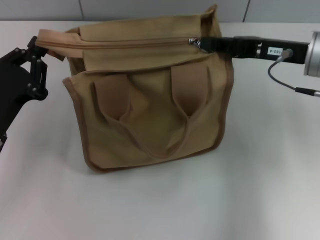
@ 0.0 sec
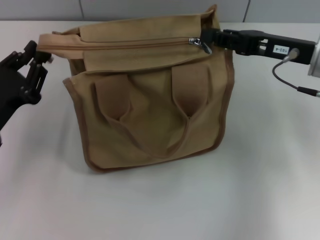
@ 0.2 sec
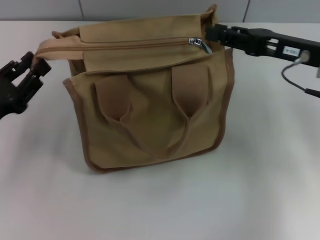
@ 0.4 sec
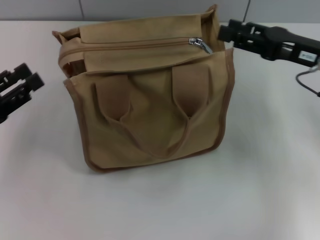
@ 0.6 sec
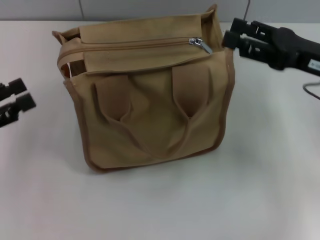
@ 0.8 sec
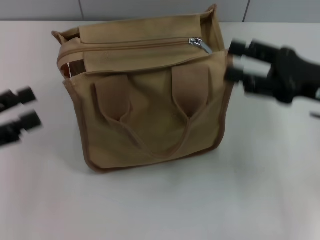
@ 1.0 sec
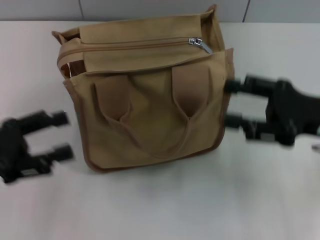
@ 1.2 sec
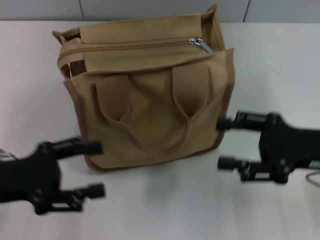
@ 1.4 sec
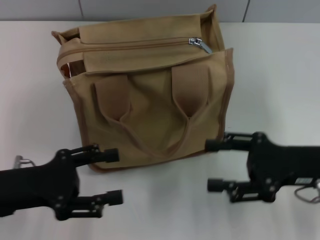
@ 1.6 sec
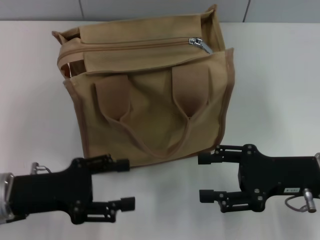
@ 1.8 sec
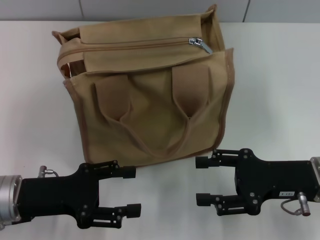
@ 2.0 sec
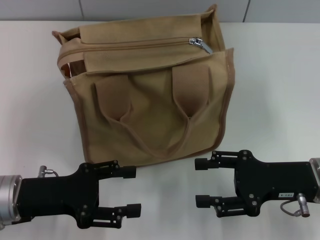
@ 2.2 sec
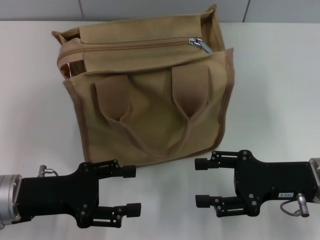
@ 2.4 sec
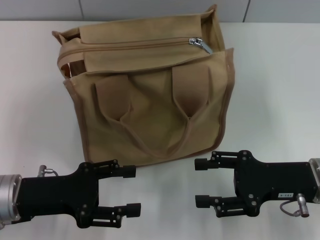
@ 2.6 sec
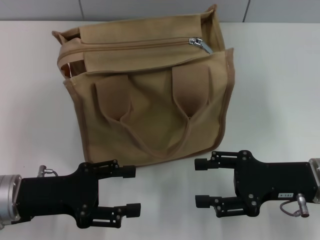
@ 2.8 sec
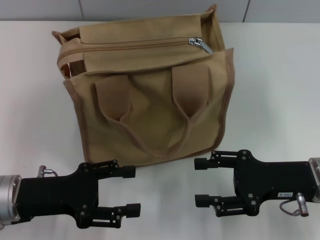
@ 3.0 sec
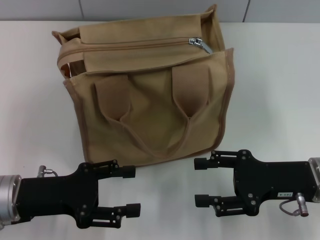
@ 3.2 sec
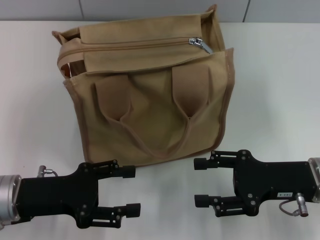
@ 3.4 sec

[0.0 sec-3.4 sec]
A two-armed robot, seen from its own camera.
0.0 sec to 1.6 sec: The right gripper travels backward and downward by approximately 15 cm, and opens up. The left gripper goes to the left and returns, about 10 cm each way, and opens.
1.6 sec to 3.4 sec: There are only small adjustments of the grippers.

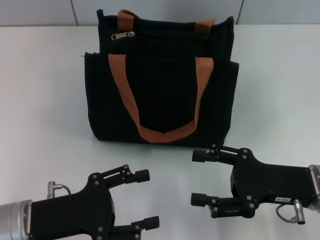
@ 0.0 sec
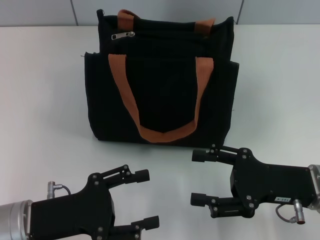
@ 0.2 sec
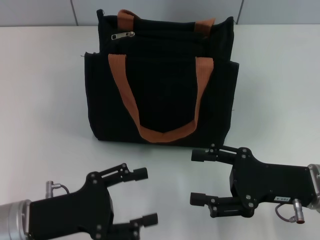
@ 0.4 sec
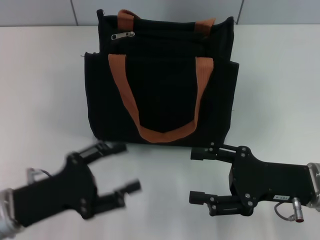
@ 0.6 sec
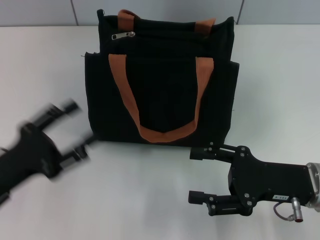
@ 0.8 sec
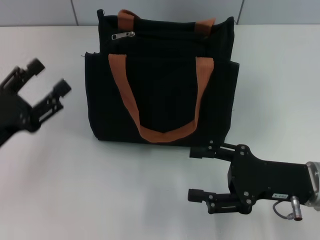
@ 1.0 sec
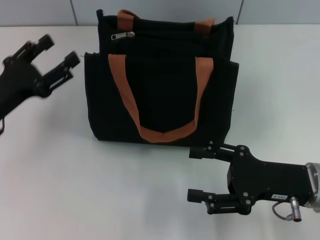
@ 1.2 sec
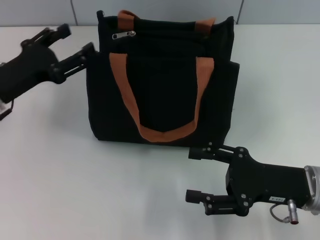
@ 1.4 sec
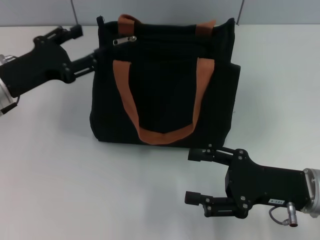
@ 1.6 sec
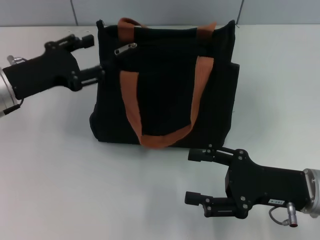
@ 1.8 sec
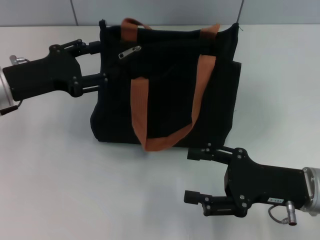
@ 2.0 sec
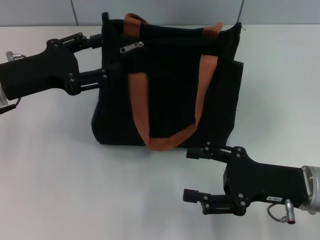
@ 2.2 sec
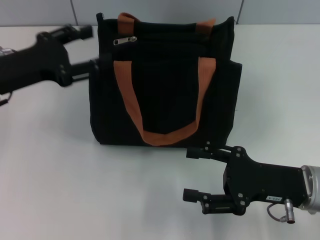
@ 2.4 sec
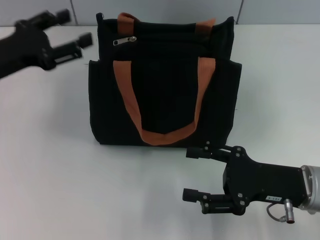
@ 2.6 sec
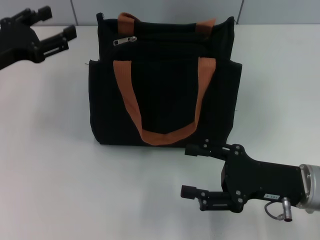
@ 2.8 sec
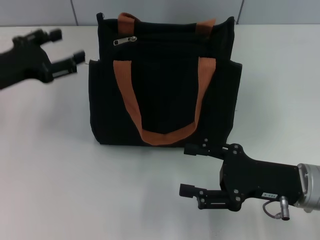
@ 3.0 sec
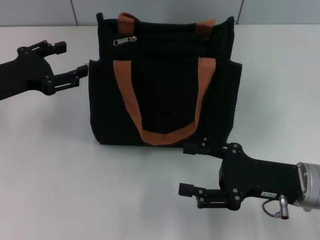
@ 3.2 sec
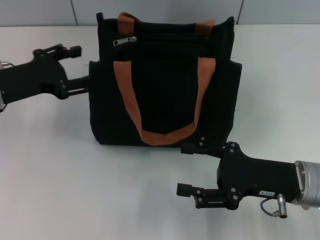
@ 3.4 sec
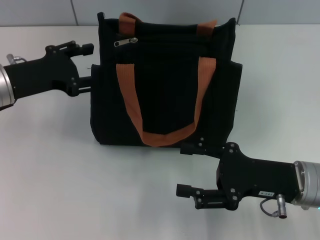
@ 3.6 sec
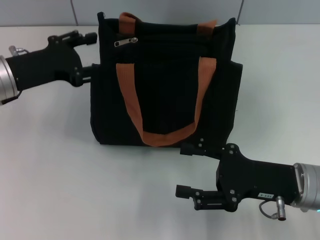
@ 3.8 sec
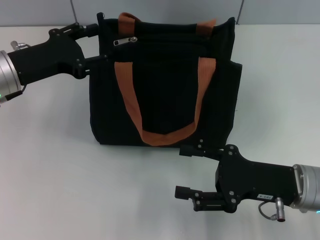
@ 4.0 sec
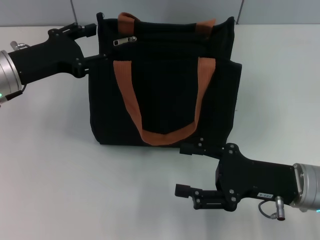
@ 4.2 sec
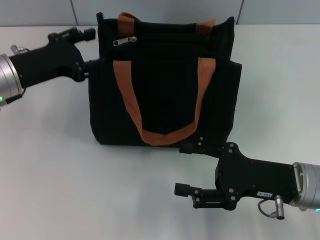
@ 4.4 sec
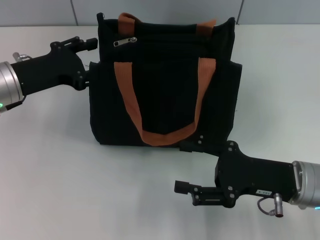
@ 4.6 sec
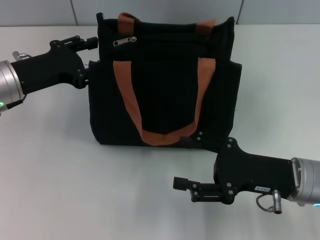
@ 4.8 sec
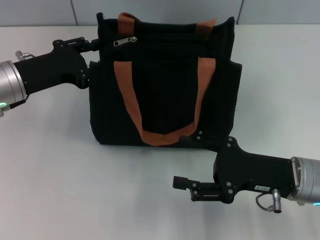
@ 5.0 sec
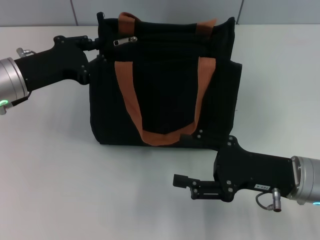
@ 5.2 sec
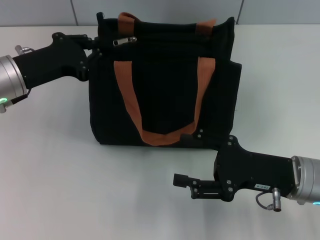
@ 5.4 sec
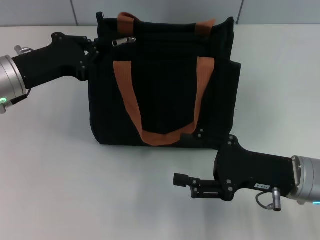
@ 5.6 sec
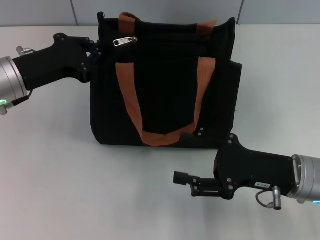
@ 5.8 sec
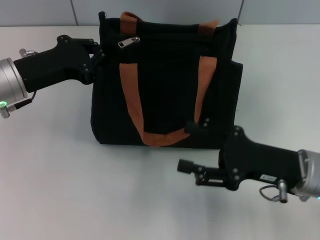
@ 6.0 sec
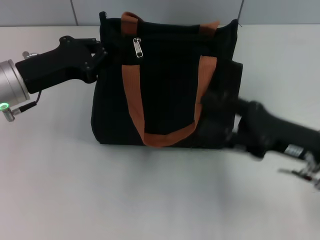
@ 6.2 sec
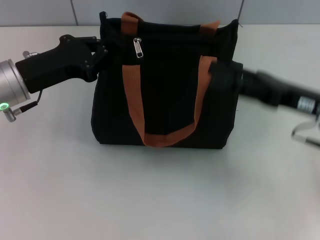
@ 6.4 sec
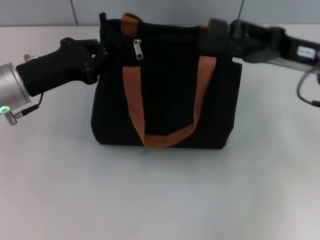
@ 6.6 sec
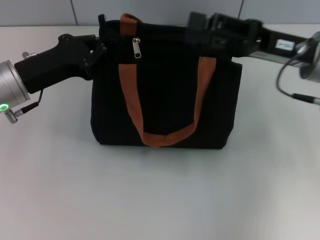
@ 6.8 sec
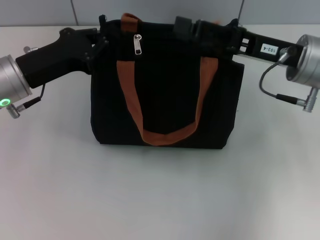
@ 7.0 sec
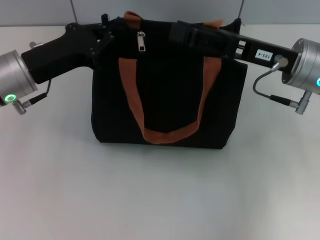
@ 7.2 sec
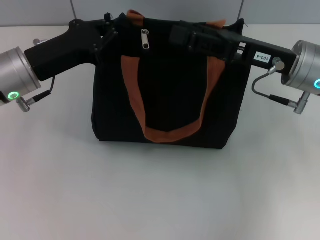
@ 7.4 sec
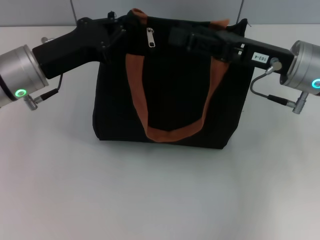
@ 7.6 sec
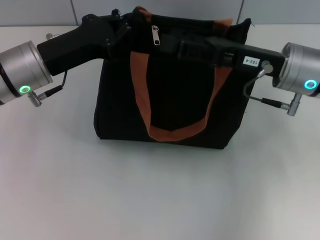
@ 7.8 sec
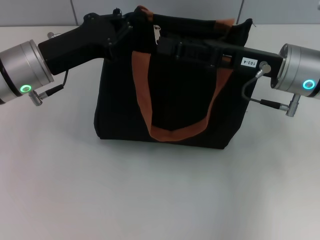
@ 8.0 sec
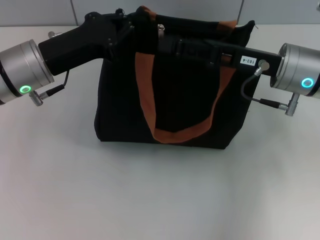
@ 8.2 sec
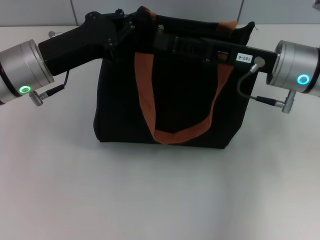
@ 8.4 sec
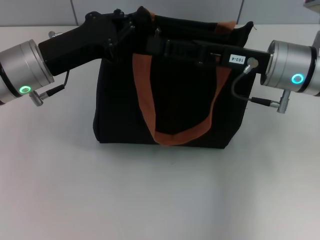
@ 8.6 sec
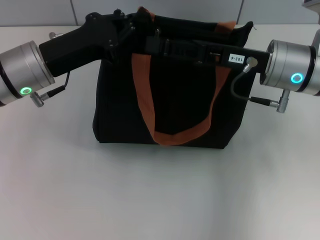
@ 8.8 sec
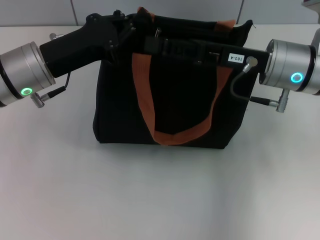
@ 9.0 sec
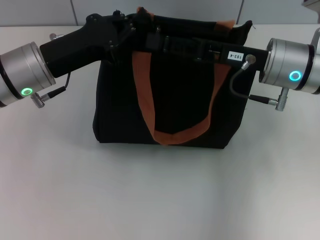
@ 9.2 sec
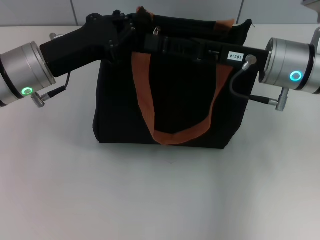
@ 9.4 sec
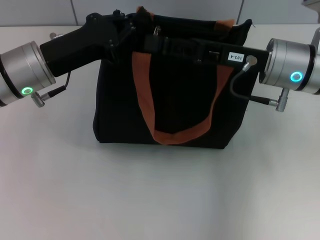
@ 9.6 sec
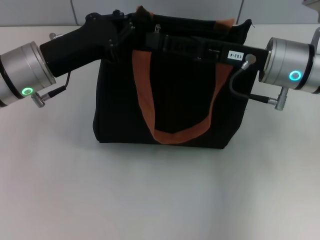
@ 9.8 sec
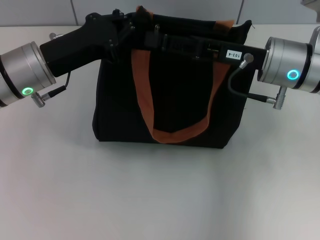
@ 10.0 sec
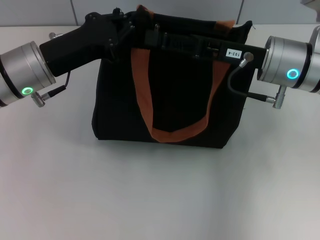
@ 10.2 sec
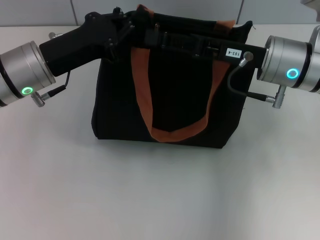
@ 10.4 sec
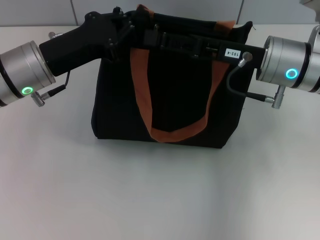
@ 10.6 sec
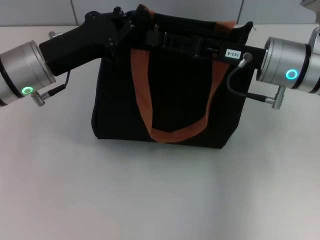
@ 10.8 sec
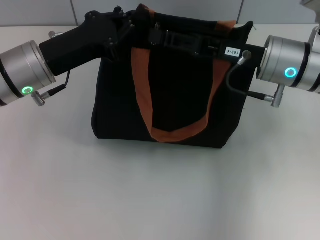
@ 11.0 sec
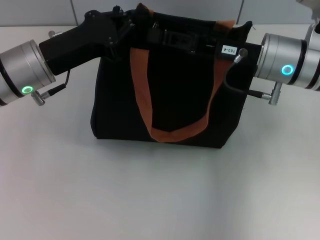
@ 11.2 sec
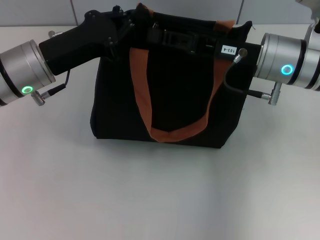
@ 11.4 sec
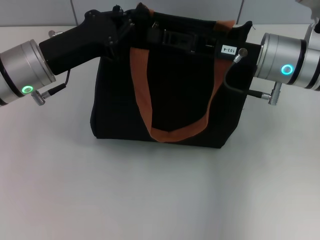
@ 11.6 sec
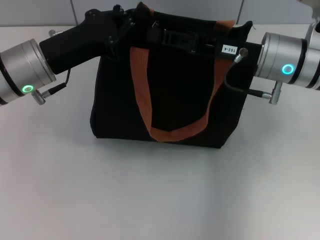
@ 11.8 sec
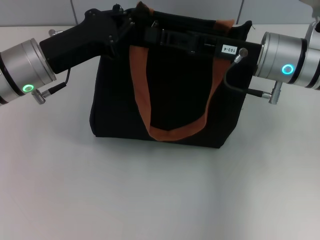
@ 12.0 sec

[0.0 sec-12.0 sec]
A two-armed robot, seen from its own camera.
0.0 sec to 1.6 sec: The left gripper moves forward and upward, roughly 15 cm.
1.6 sec to 4.4 sec: The grippers move only a little.
4.4 sec to 6.0 sec: The left gripper closes.
6.0 sec to 7.6 sec: The right gripper heads forward and upward, covering roughly 15 cm.
7.6 sec to 9.0 sec: The grippers move only a little.
9.0 sec to 10.4 sec: The two grippers keep their place.
10.4 sec to 12.0 sec: The right gripper closes up.

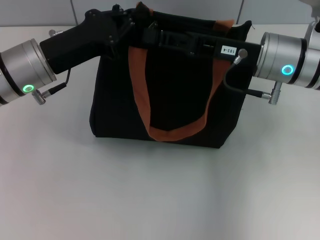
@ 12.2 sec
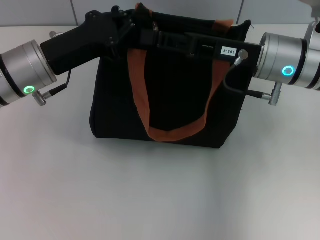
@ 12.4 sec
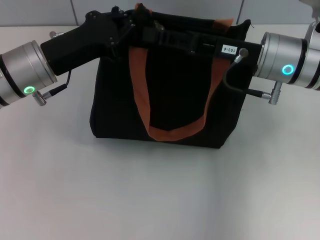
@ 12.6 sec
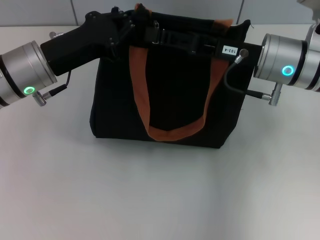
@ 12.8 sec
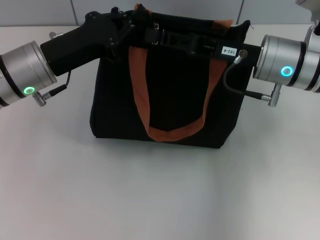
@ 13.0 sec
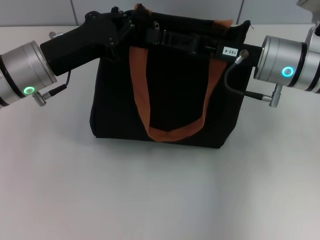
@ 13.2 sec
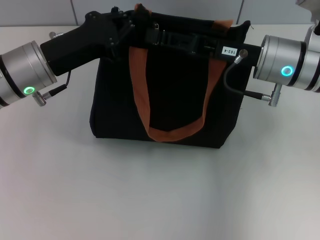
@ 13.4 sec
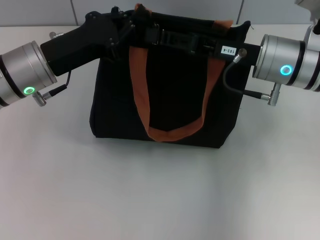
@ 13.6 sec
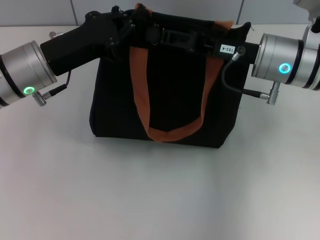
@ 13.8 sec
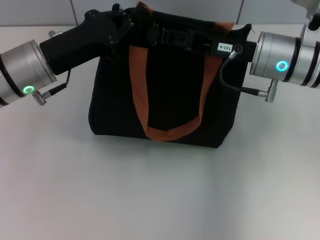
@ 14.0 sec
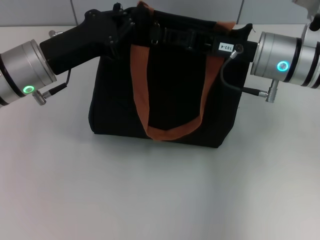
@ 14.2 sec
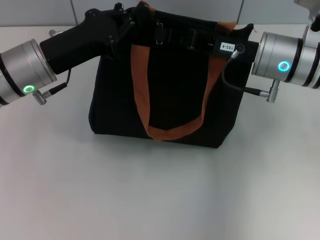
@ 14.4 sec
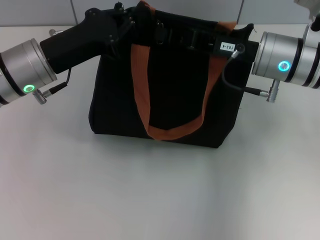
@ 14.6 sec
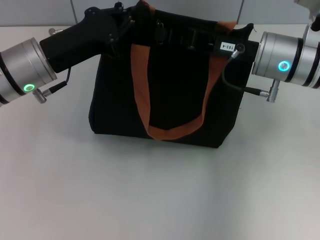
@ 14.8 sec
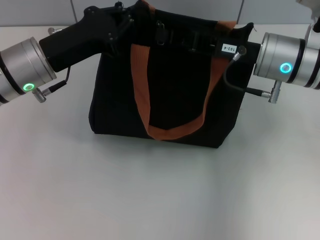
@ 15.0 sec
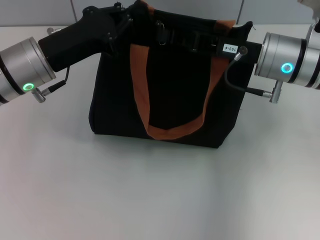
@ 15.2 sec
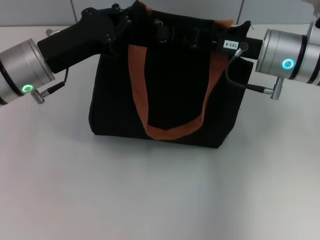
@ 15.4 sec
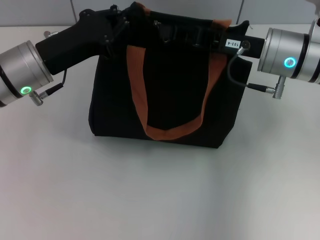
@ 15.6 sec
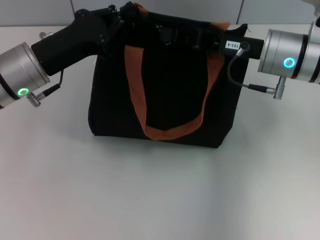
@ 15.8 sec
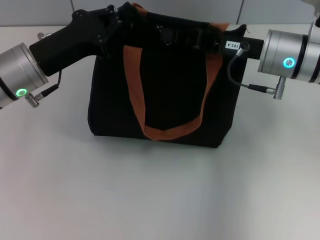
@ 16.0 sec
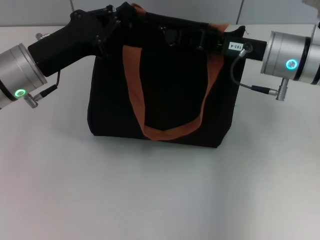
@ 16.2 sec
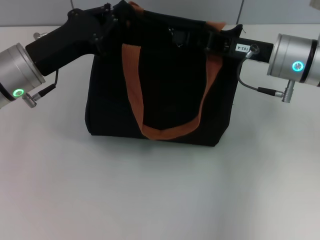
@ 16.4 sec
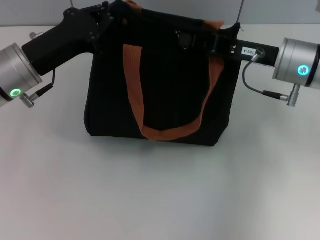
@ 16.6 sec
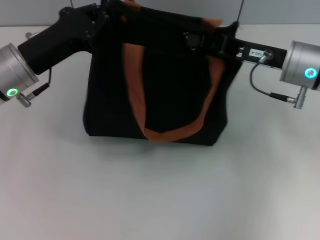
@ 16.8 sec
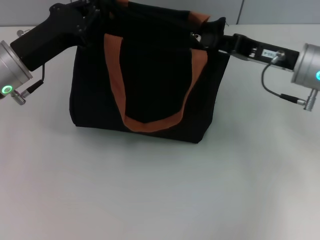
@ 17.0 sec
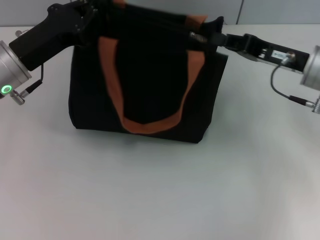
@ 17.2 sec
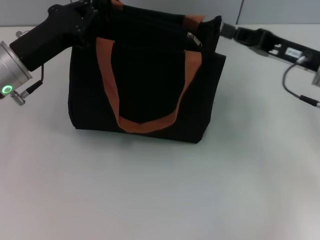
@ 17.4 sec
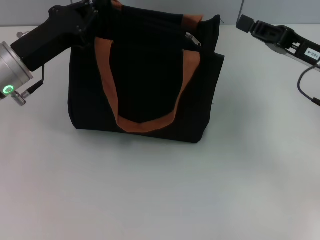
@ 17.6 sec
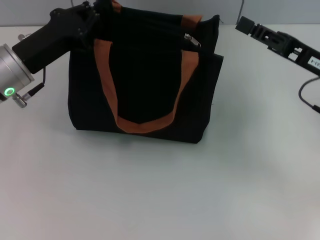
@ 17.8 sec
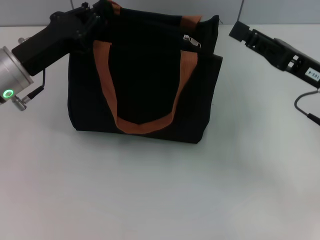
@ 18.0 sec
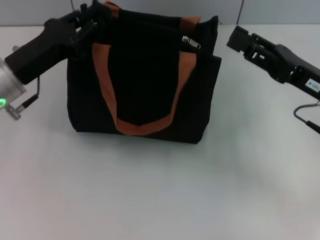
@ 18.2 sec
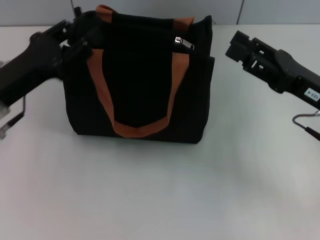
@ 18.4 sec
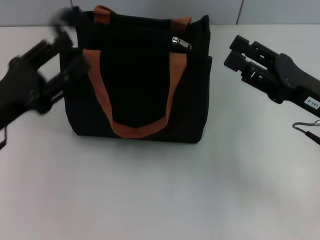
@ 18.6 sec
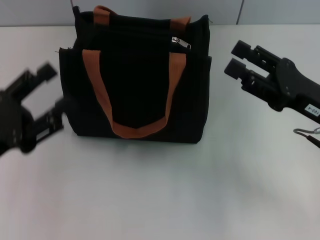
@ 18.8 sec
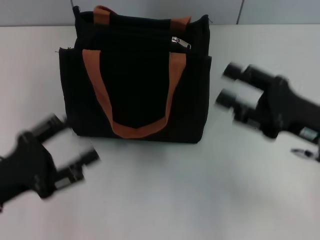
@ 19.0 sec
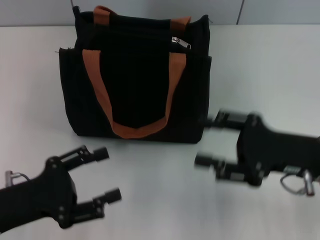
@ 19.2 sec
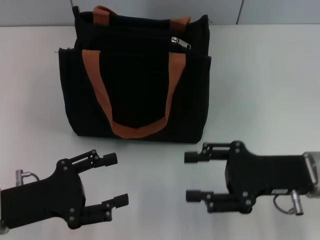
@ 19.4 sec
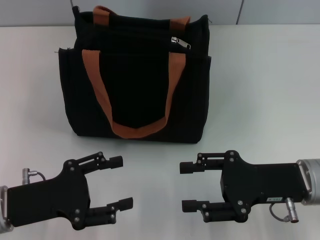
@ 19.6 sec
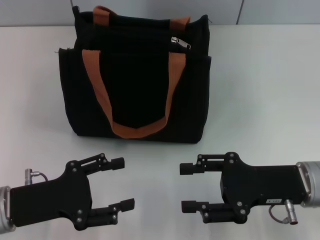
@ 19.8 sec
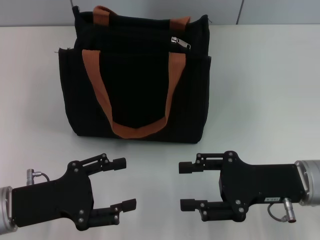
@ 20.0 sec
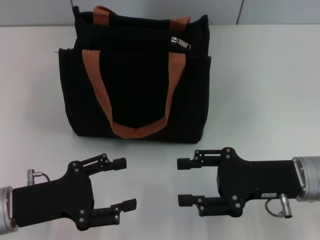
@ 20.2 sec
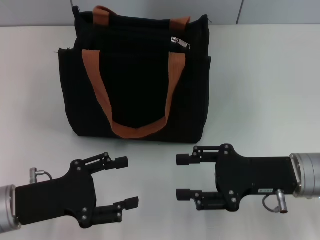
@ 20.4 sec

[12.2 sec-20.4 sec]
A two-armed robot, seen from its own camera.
Step, 12.2 sec to 17.2 sec: Pull up the zipper with your right hand.
Step, 17.4 sec to 18.4 sec: Grab the zipper with your left hand.
12.2 sec to 13.8 sec: The grippers stay close to where they were, moving slightly.
13.8 sec to 15.4 sec: The right gripper closes.
15.4 sec to 17.2 sec: The right gripper moves to the right, about 5 cm.
17.2 sec to 18.8 sec: The right gripper moves backward, roughly 10 cm, and opens its fingers. The left gripper moves backward, approximately 15 cm, and opens its fingers.
18.8 sec to 20.4 sec: The right gripper moves roughly 5 cm. The left gripper moves about 5 cm.
